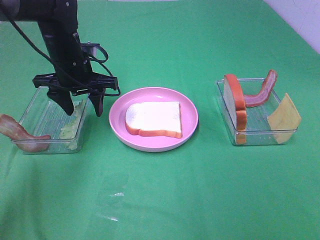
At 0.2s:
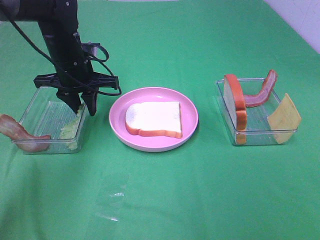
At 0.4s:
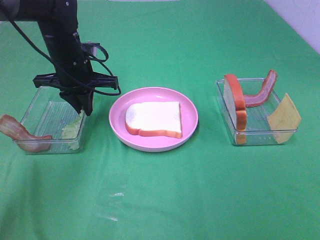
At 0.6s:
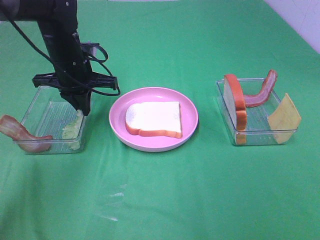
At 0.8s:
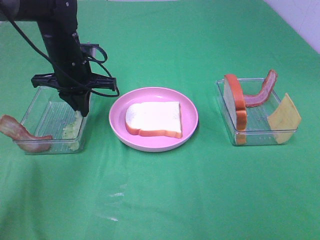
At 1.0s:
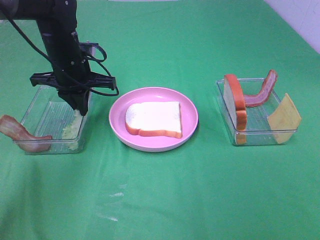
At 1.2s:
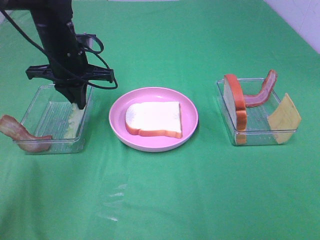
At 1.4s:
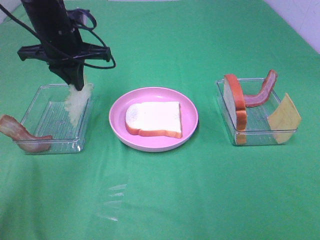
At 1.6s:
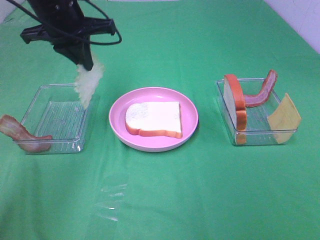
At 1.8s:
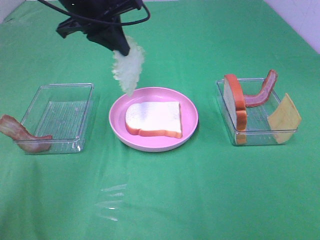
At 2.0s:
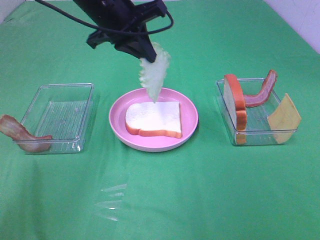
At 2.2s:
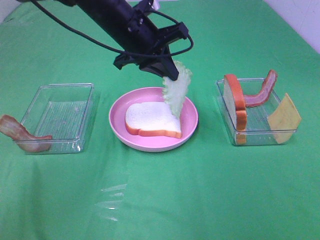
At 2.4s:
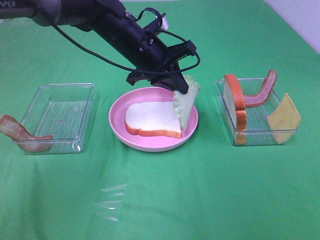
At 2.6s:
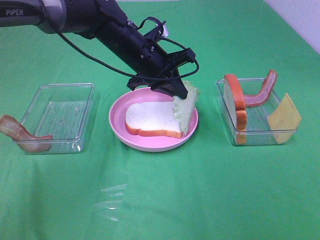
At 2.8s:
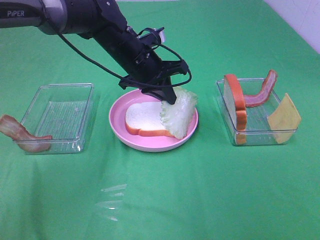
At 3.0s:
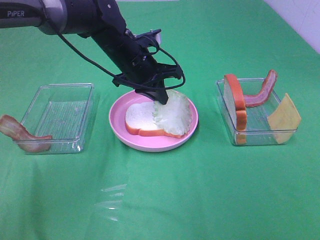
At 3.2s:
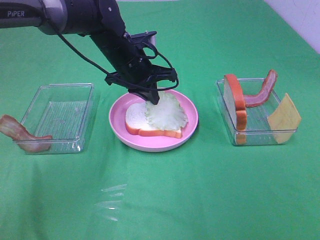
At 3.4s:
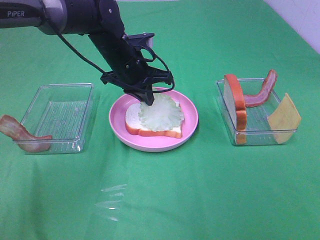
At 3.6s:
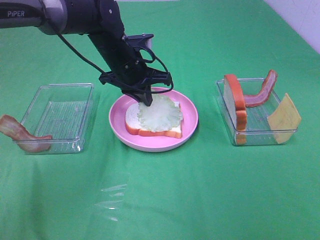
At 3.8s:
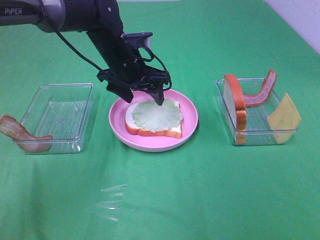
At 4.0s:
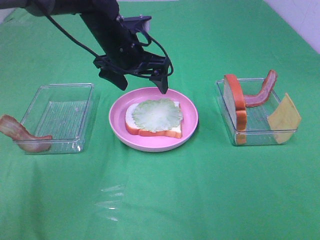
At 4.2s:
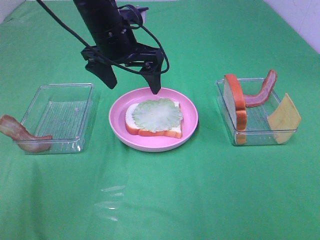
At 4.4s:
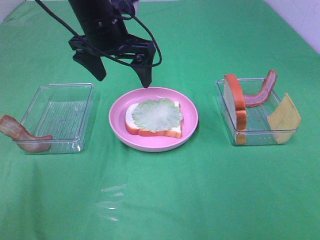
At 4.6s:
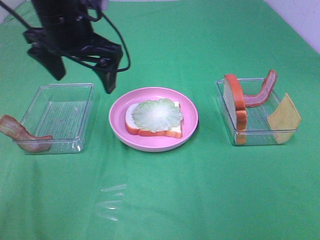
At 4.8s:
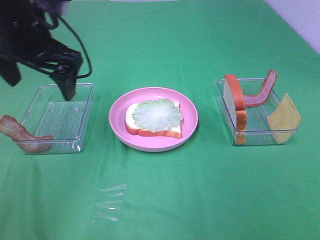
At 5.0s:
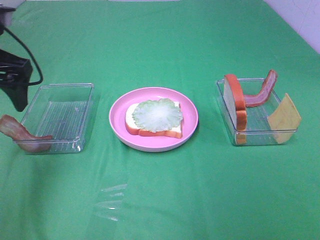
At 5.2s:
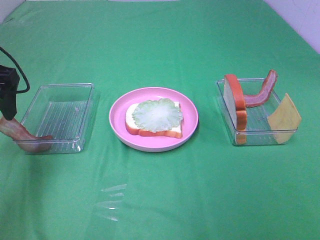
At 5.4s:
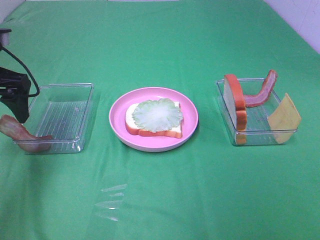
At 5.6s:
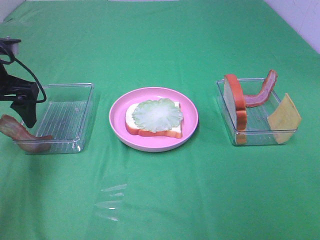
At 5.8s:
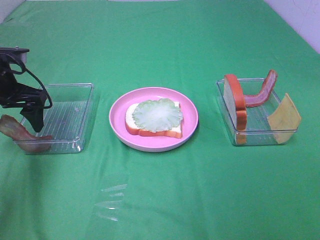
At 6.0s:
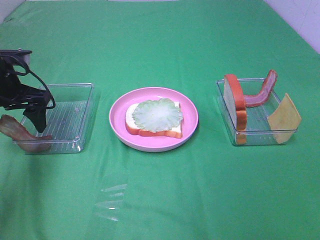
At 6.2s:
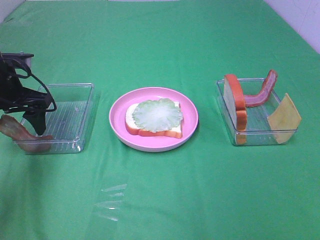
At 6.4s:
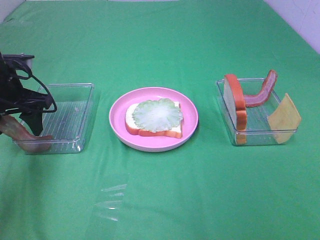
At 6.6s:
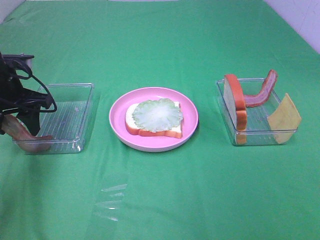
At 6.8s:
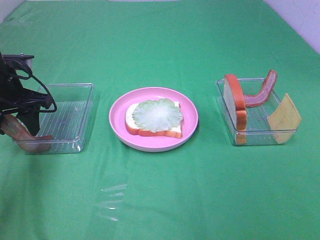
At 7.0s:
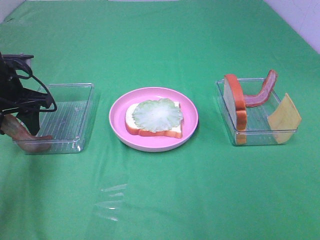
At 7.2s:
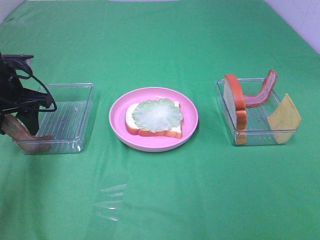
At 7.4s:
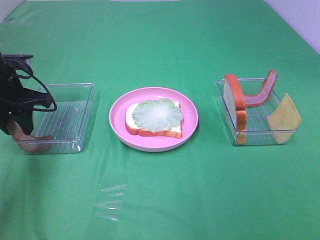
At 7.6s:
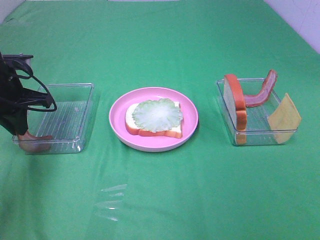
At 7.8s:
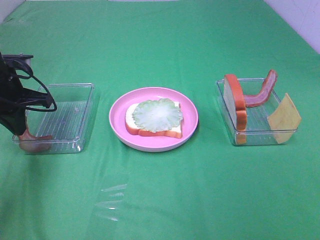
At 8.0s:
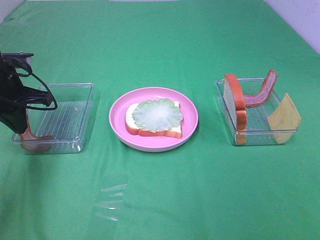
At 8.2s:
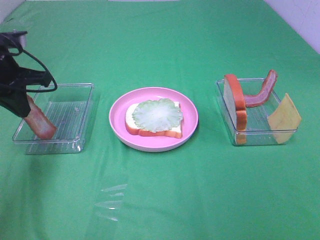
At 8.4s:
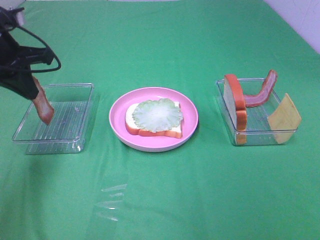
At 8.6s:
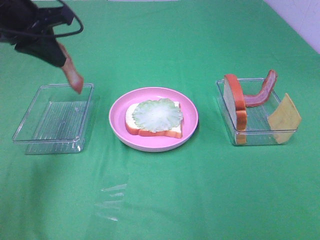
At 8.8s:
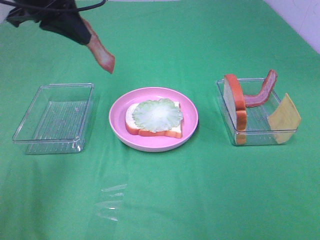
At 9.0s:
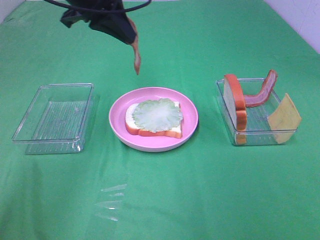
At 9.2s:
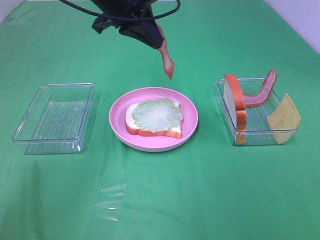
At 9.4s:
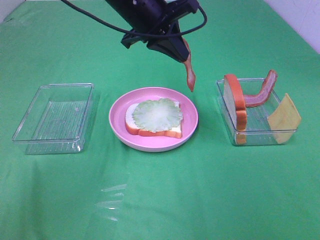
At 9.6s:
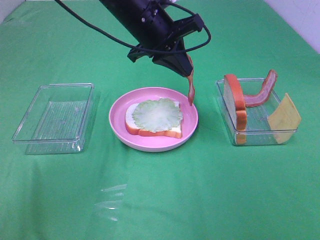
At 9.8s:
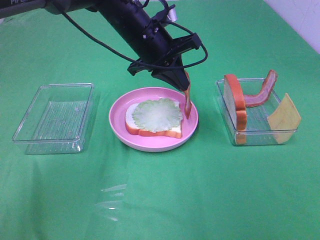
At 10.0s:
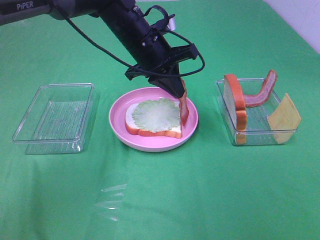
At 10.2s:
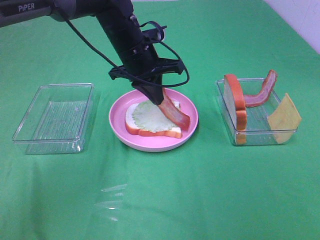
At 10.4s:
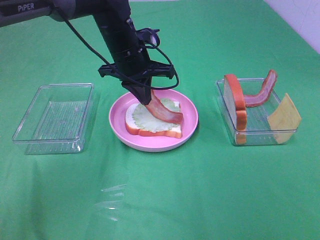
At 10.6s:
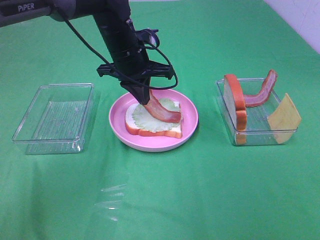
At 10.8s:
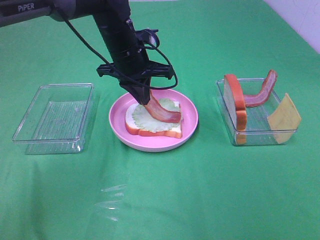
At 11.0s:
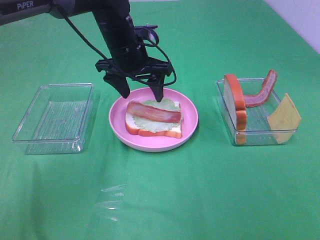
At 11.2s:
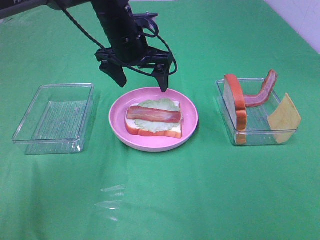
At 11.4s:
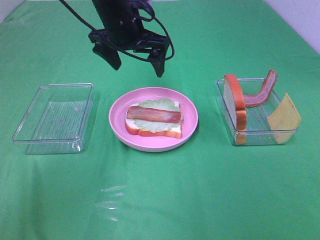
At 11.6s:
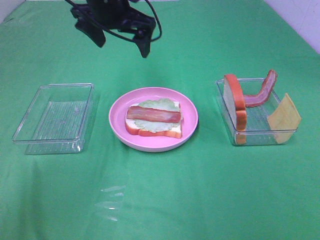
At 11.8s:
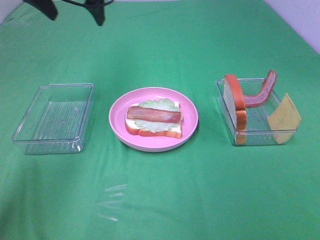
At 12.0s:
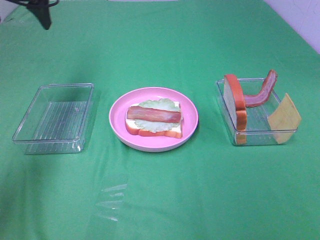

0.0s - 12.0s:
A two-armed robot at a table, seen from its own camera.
Task of the whole recording: Make sandwiches.
Step, 1.0s - 3.8s: Left hand:place the lettuce slice on the bread slice.
Step, 4.0s - 7.8s: Left hand:grab the bacon.
Step, 8.0s - 11.0s: Left hand:place bacon on lettuce slice.
0.0s - 1.6s: The left gripper shifts roughly 10 cm upward, and closes.
1.6s - 3.0s: The left gripper is displaced downward and to the right by roughly 15 cm.
3.0s - 4.4s: The left gripper travels upward by approximately 10 cm, and opens up.
4.4s - 6.0s: The left gripper is displaced to the left and downward by about 20 cm.
6.0s - 7.6s: The left gripper closes up.
7.6s - 9.0s: The left gripper travels to the right and upward by about 20 cm.
9.0s - 10.4s: The left gripper shifts approximately 15 cm downward and to the right.
10.4s - 12.0s: The left gripper shifts about 25 cm to the left and upward, and opens its fingers.

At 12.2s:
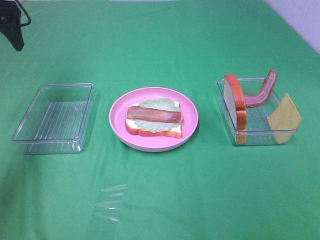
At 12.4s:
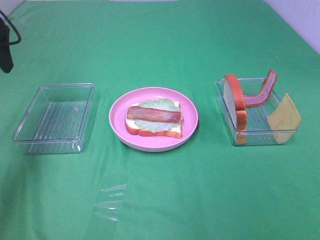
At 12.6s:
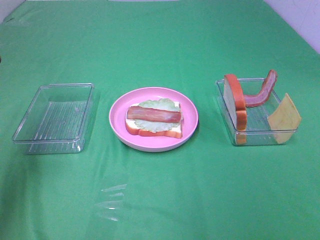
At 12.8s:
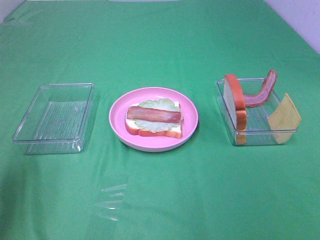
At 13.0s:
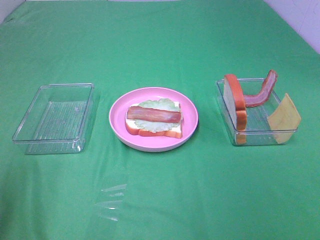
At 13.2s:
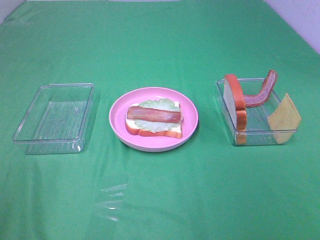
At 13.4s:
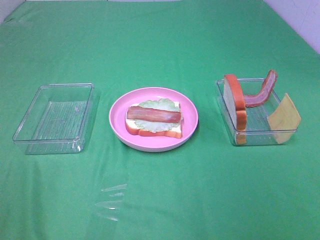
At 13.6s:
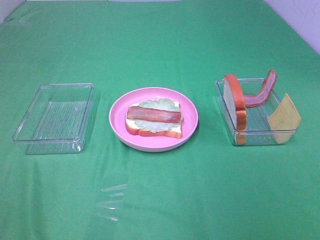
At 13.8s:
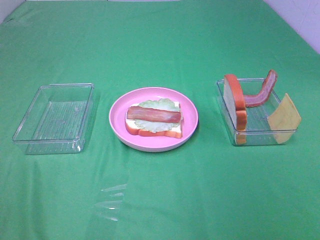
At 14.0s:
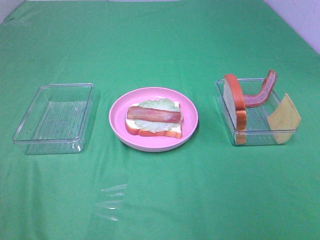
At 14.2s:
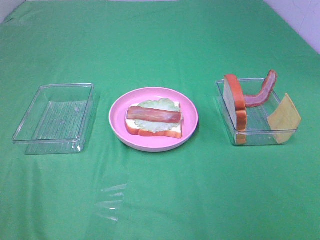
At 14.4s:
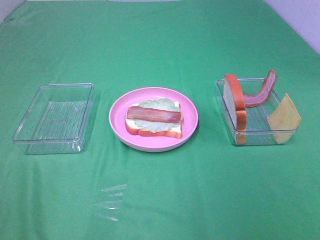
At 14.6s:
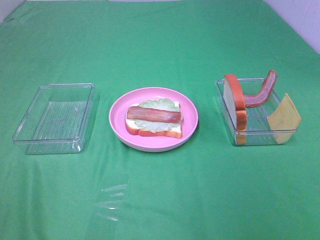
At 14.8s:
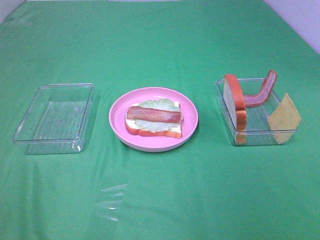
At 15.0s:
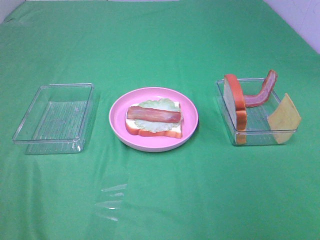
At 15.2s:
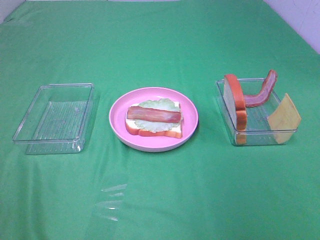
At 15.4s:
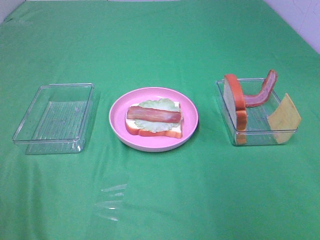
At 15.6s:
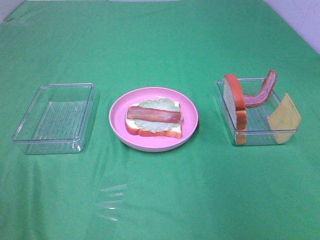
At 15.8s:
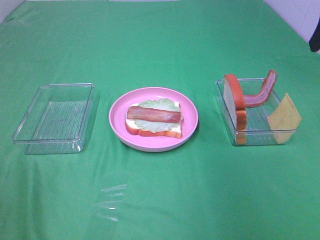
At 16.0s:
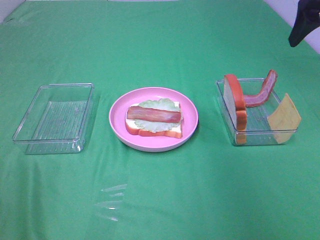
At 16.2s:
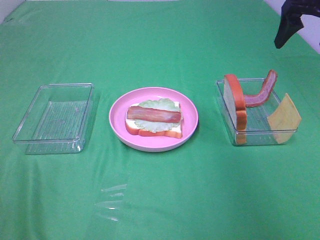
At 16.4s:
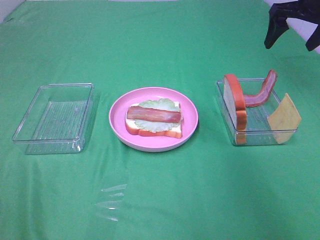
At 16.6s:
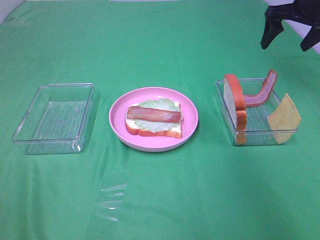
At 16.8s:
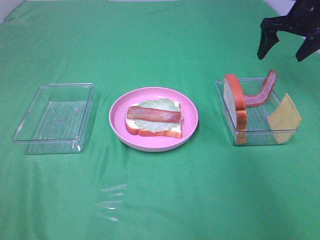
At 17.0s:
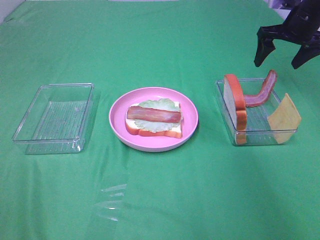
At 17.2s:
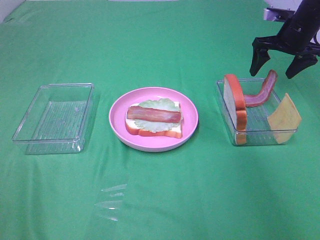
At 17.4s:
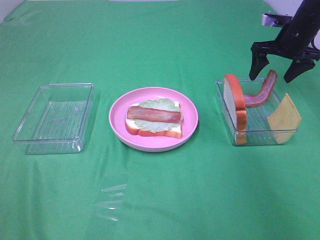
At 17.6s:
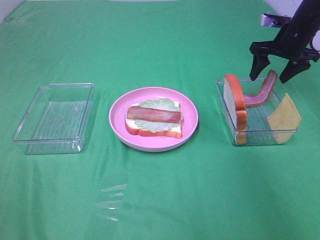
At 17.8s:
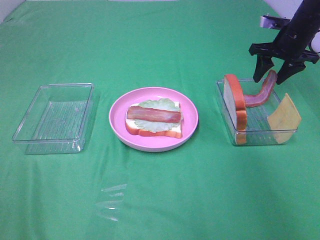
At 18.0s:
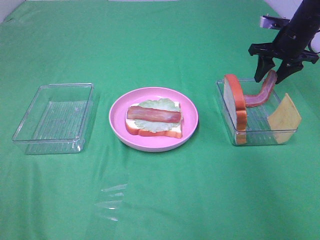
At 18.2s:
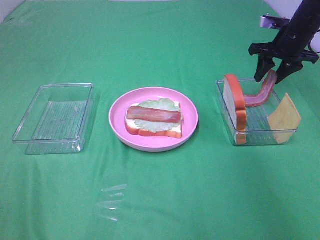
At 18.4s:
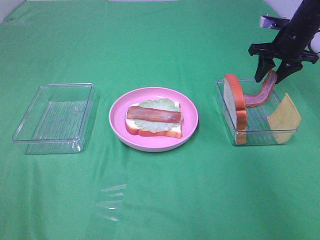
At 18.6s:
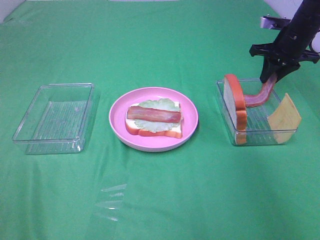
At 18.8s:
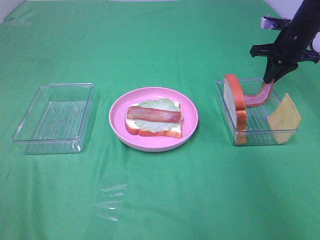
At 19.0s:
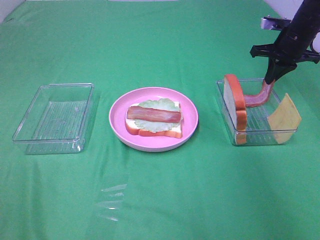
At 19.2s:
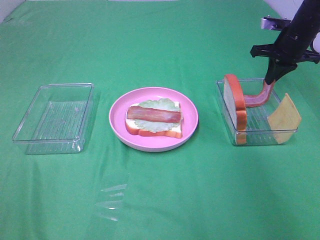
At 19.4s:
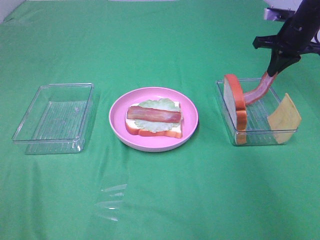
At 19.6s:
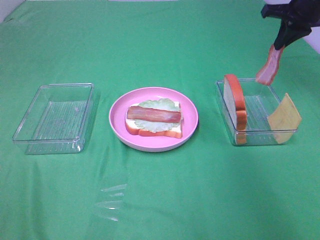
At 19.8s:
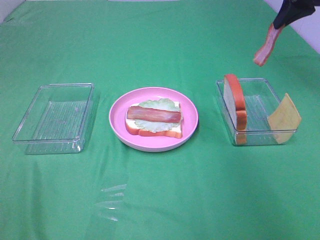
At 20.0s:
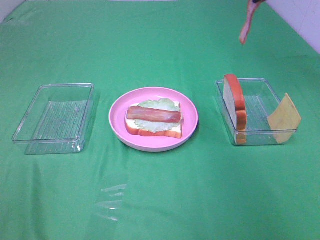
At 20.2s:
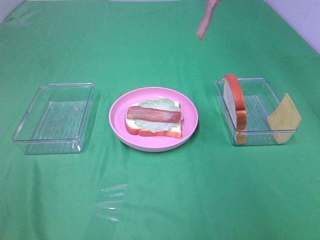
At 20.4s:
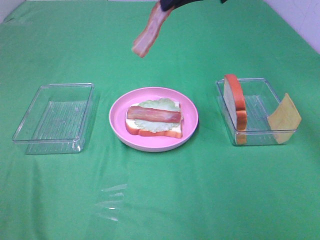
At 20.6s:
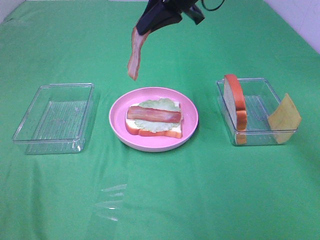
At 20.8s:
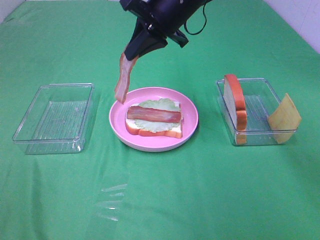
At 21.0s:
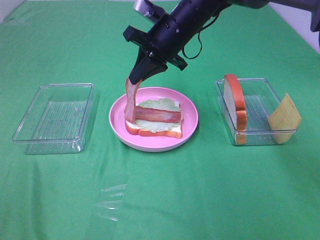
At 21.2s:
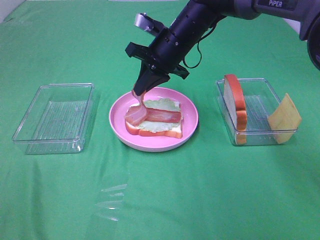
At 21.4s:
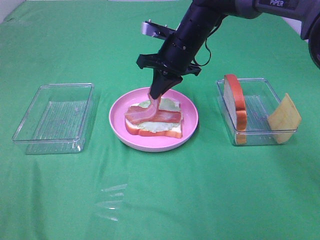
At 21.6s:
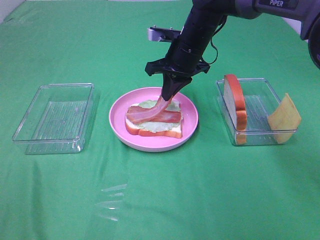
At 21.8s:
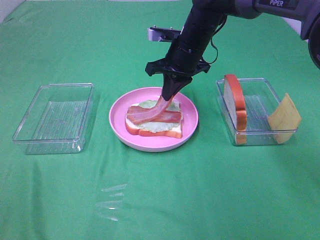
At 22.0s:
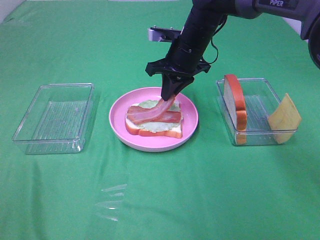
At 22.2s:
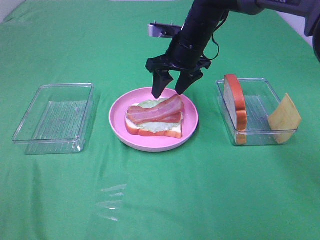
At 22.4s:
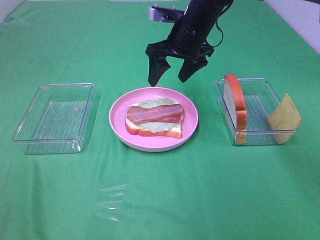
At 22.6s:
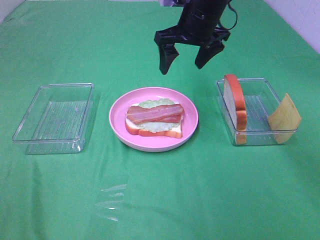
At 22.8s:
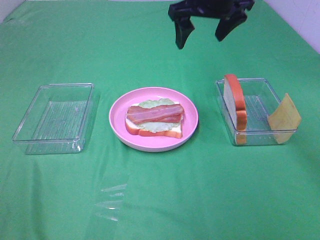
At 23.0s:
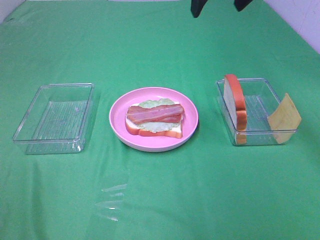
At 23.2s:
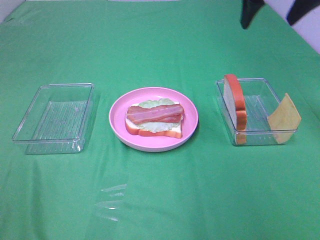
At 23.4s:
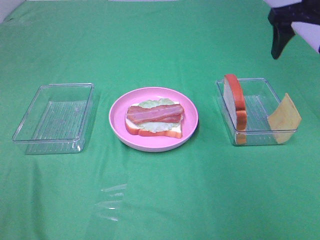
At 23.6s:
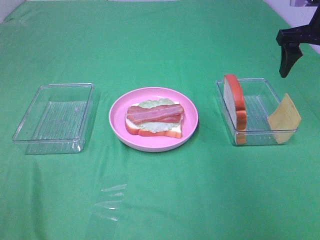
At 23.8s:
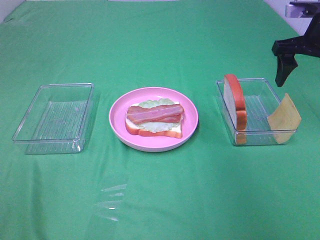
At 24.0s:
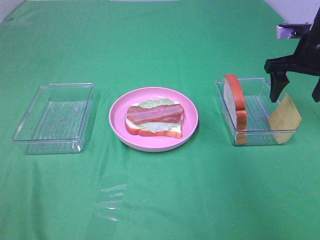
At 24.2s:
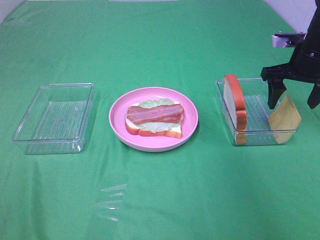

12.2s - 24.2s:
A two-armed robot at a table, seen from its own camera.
Task of the whole recording: Make sandwiches.
Step, 12.2s - 19.0s: Right hand:grab the bacon.
Step, 19.2s - 22.4s: Right hand:place bacon on bacon.
12.2s - 13.8s: The left gripper is displaced backward by about 40 cm.
15.2s - 16.6s: The right gripper heads forward, covering roughly 35 cm.
16.6s - 18.2s: The right gripper shifts some 10 cm downward, and closes its fingers.
18.2s - 19.8s: The right gripper goes some 15 cm upward, and closes its fingers.
19.8s - 21.2s: The right gripper moves to the left and downward, some 30 cm.
21.2s - 22.6s: The right gripper heads upward, covering some 5 cm, and opens.
22.6s - 24.2s: The right gripper travels to the right by approximately 20 cm.
